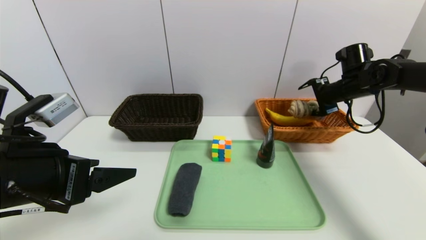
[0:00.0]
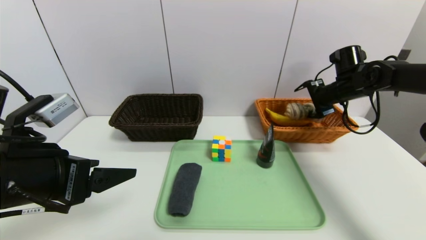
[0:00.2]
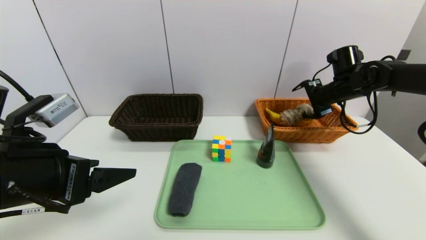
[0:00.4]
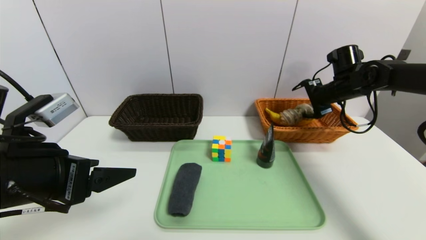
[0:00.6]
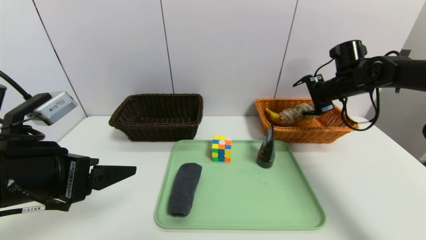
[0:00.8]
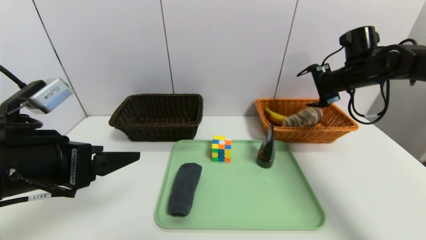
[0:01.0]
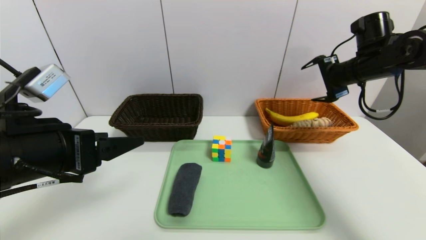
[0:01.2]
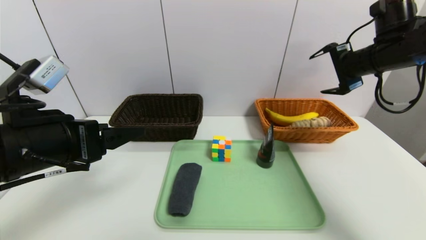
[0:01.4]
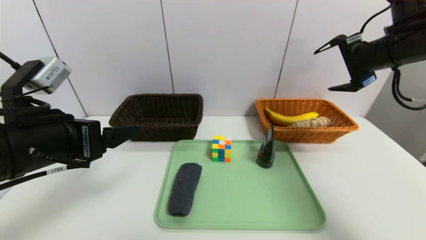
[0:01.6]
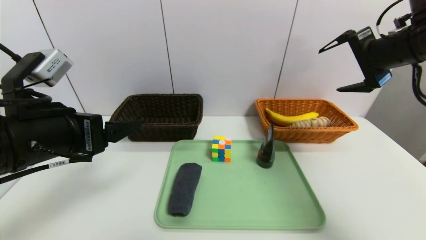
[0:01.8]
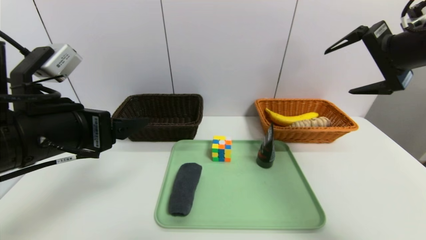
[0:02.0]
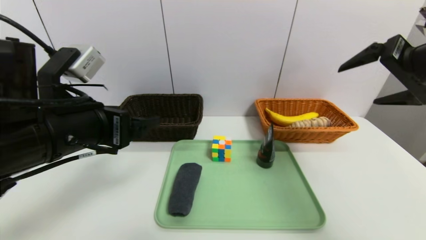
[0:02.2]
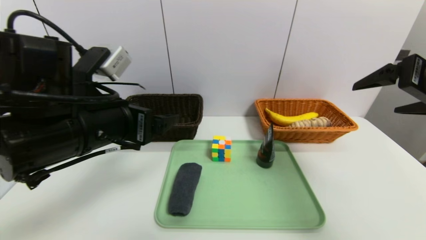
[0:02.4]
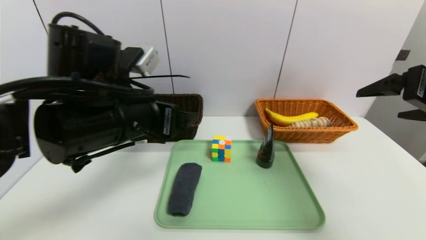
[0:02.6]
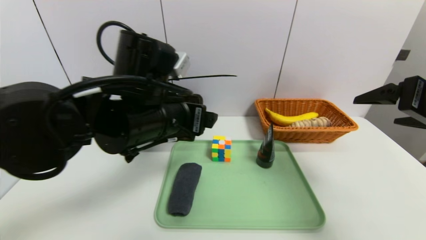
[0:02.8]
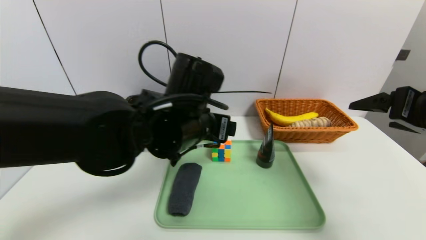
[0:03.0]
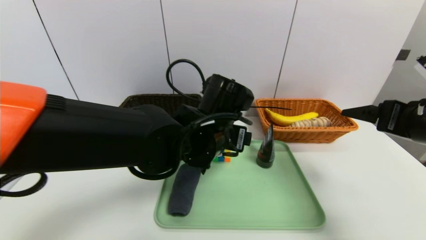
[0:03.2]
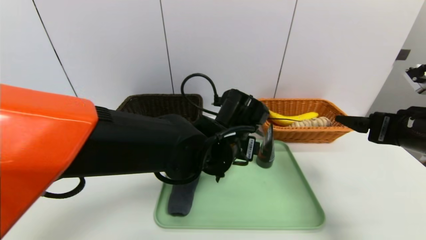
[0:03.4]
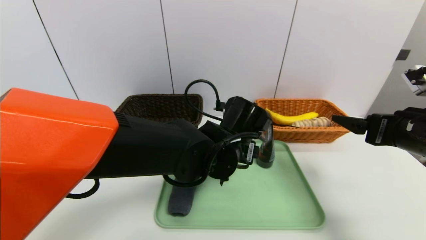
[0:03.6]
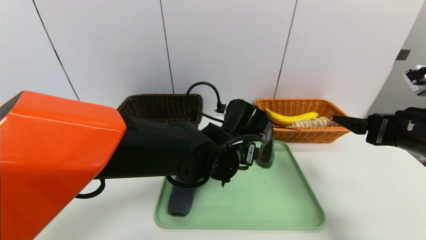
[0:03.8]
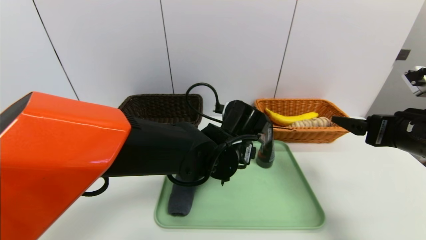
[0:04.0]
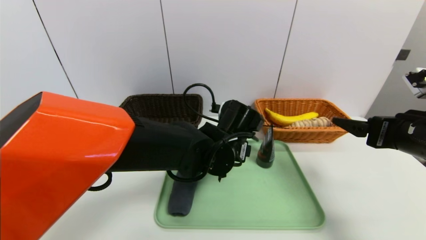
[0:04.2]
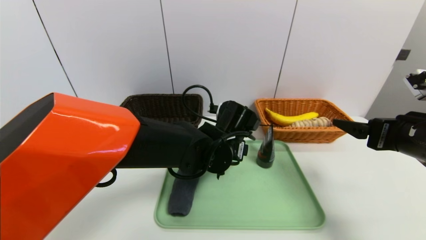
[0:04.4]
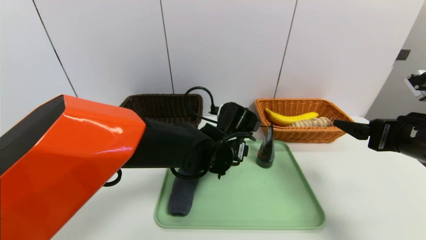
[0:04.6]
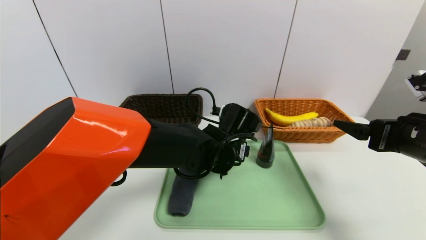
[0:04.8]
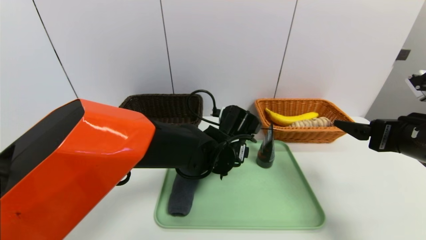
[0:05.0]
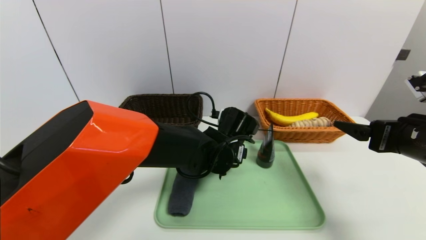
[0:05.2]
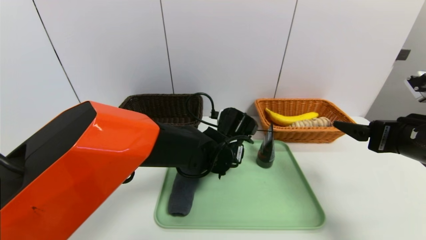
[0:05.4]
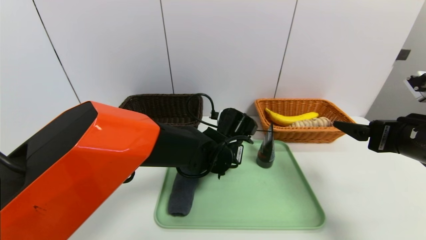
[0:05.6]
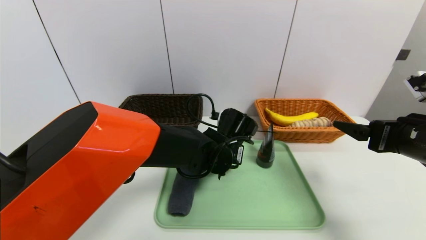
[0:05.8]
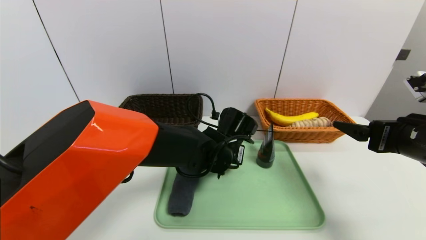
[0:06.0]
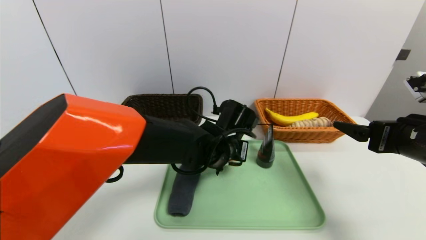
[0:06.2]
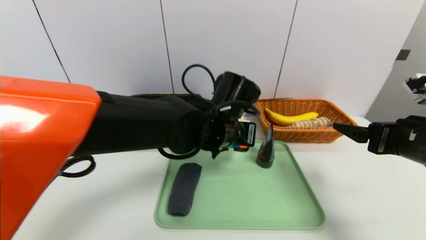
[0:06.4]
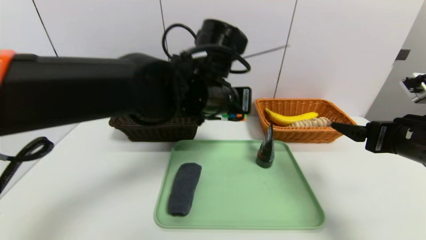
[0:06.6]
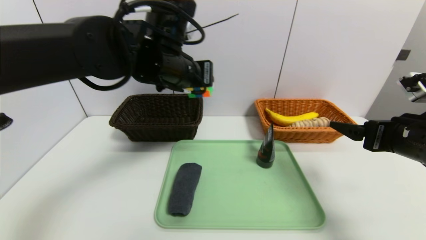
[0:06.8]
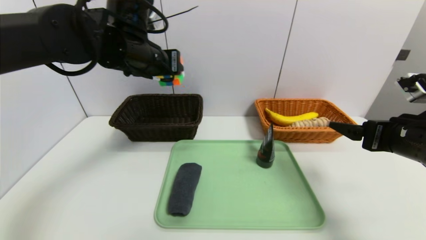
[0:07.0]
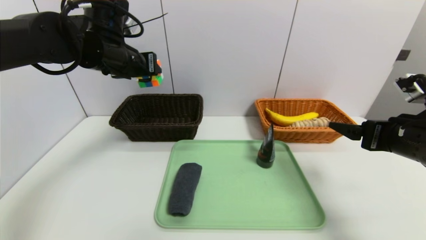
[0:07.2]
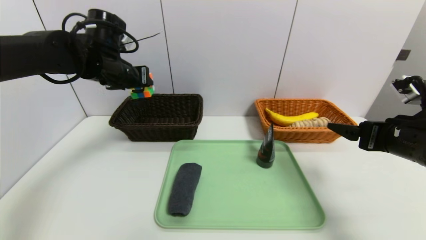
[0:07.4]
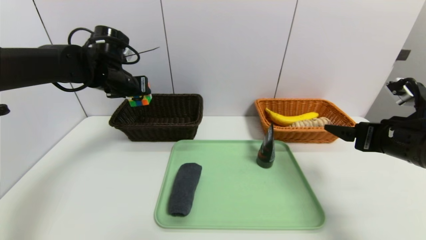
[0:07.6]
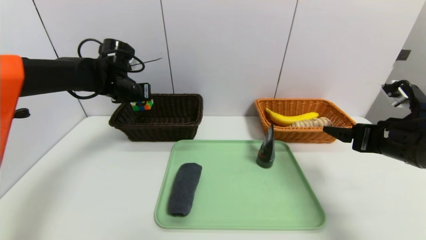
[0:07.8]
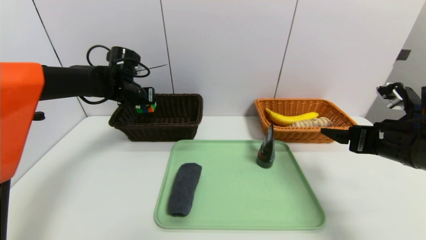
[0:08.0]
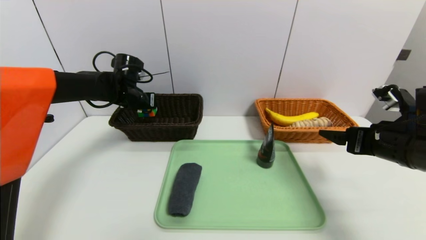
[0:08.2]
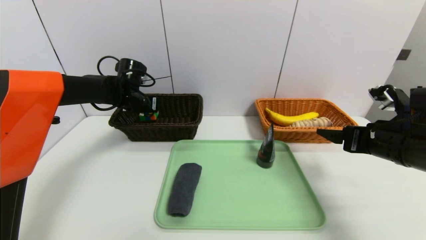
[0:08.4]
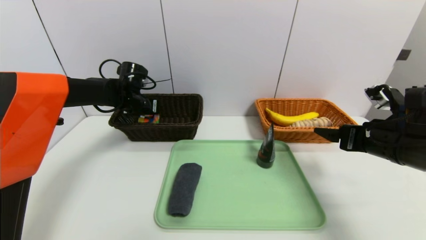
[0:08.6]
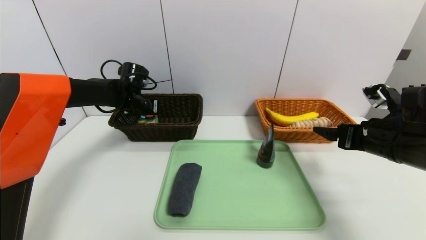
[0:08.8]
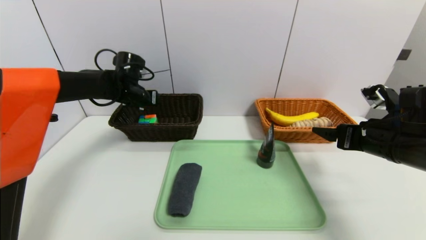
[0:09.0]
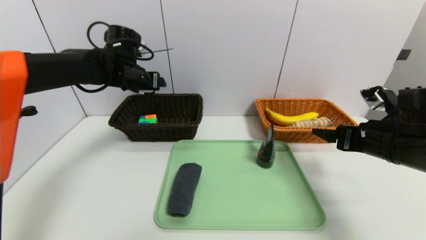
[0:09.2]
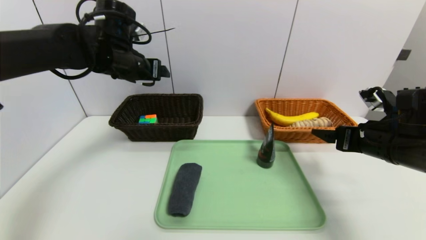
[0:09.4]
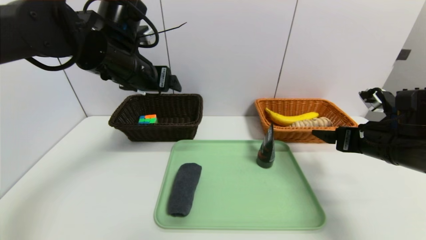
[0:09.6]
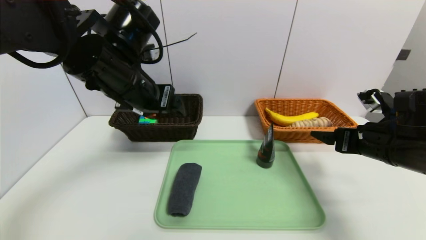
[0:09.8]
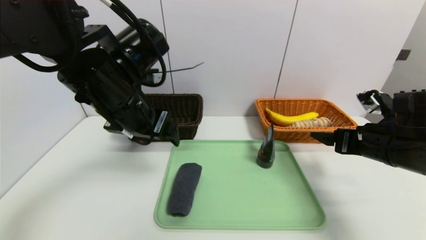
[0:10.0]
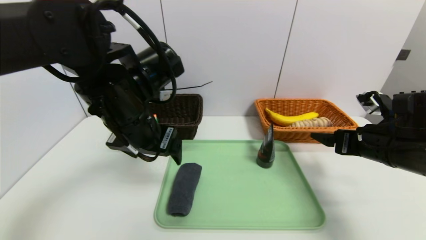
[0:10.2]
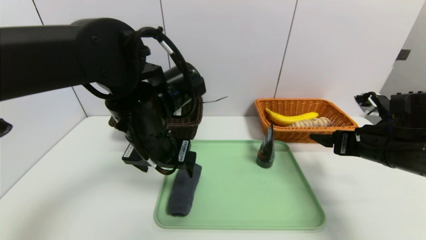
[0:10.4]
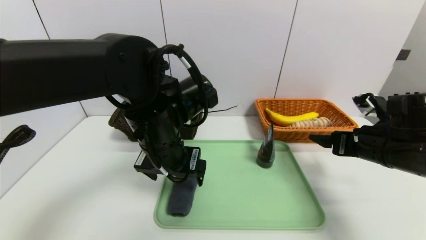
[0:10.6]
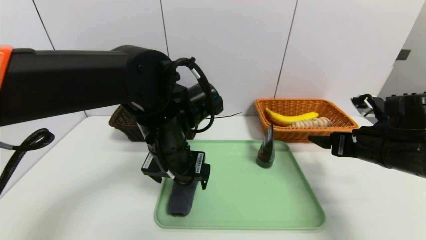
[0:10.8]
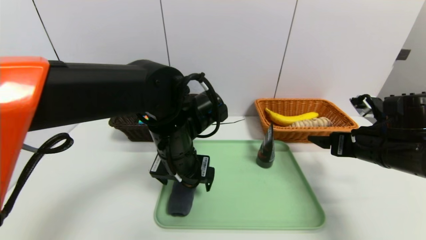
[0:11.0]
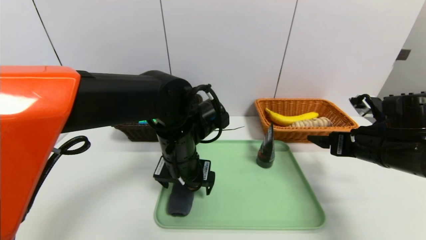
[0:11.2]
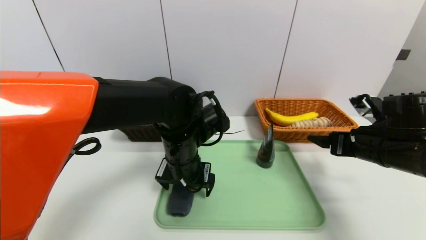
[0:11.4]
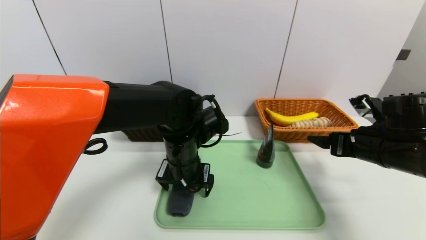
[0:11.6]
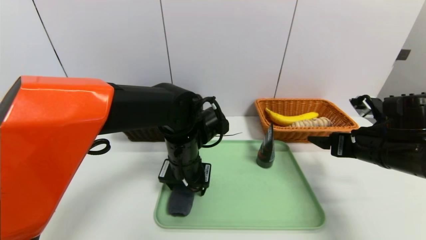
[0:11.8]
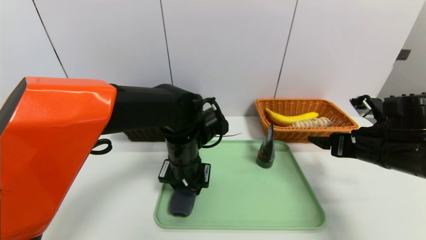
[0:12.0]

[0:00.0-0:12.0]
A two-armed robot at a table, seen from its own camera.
Task of the whole recording: place the food in the right basket with the right gripper, and place the non food items in the left basket with the left gripper.
Step, 0:01.2 to 0:09.0: Grasp the rubiks cube and put it in the left basket.
0:00.0 to 0:01.6: The right gripper travels upward and backward by about 15 cm.
0:01.6 to 0:03.0: The right gripper shifts about 15 cm backward, while the left gripper is displaced to the right and forward by some 20 cm.
0:03.0 to 0:04.4: The right gripper travels downward by approximately 5 cm. The left gripper travels downward and to the right by roughly 10 cm.
0:04.4 to 0:06.0: The left gripper closes up.
0:06.0 to 0:07.6: The left gripper moves to the left and upward, roughly 30 cm.
0:07.6 to 0:09.0: The left gripper shifts about 10 cm downward and forward.
0:09.0 to 0:10.4: The left gripper goes approximately 25 cm backward and to the right.
0:10.4 to 0:12.0: The left gripper heads downward, covering some 10 cm, and closes.

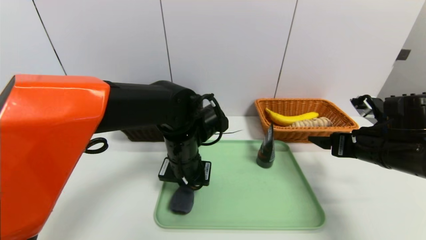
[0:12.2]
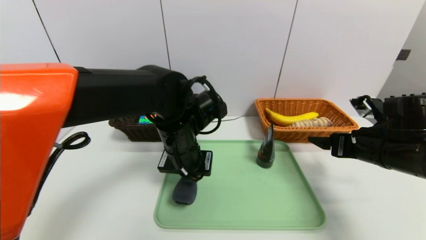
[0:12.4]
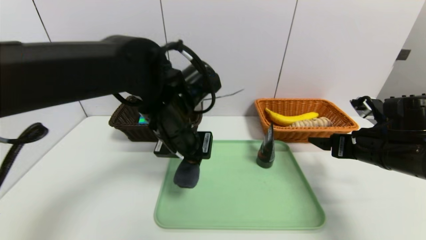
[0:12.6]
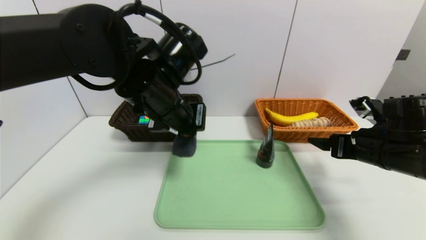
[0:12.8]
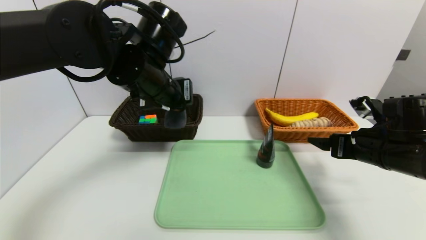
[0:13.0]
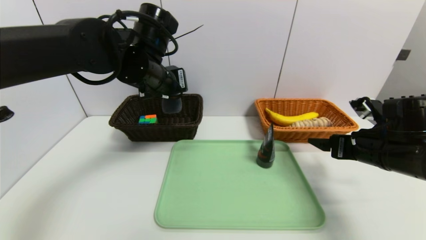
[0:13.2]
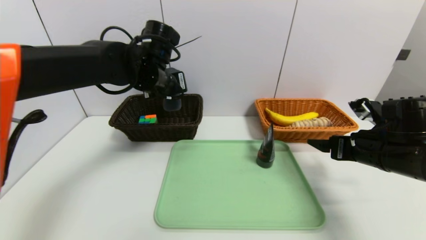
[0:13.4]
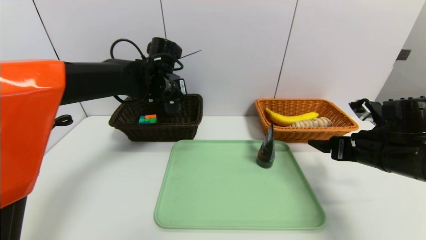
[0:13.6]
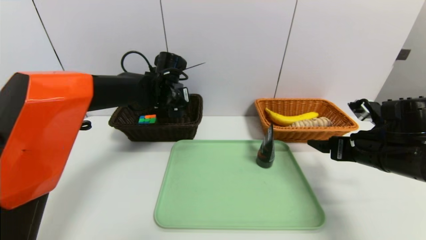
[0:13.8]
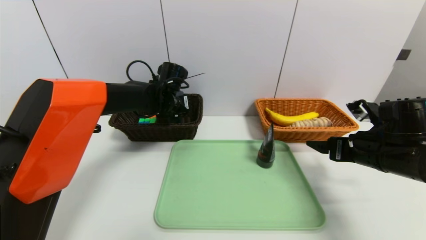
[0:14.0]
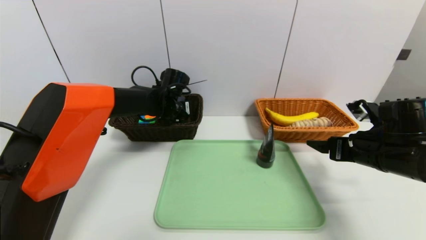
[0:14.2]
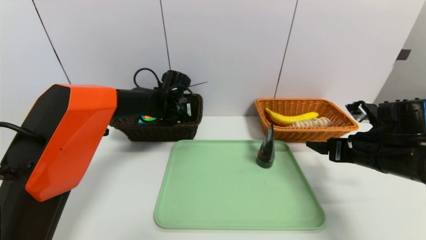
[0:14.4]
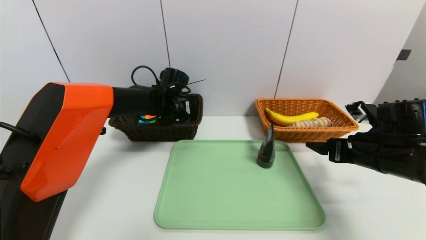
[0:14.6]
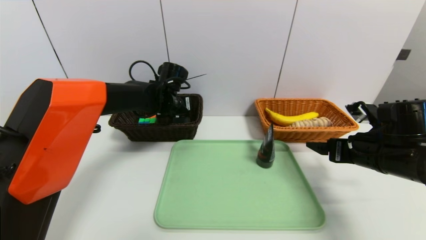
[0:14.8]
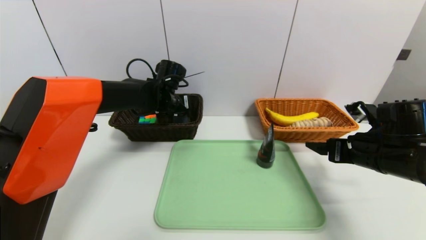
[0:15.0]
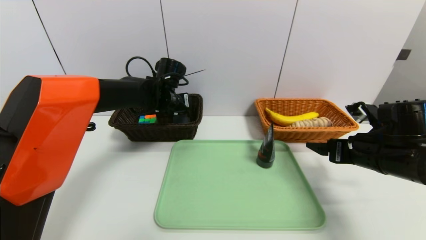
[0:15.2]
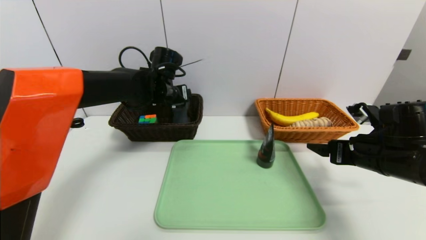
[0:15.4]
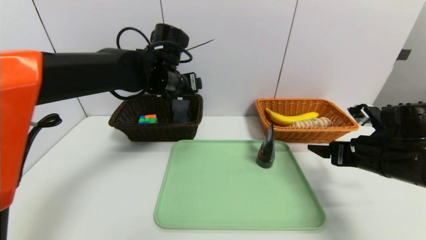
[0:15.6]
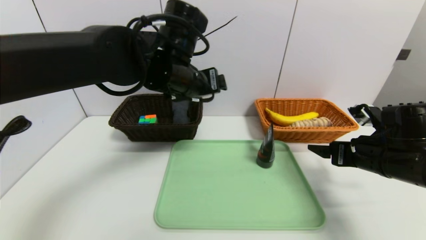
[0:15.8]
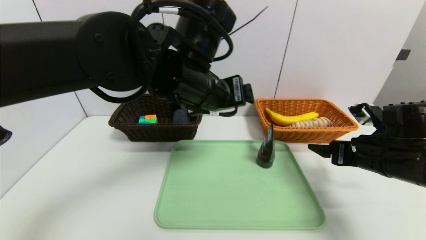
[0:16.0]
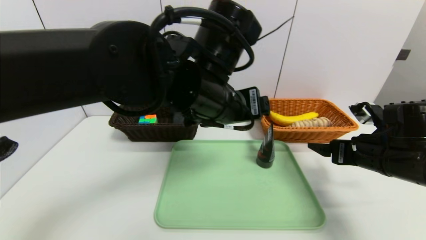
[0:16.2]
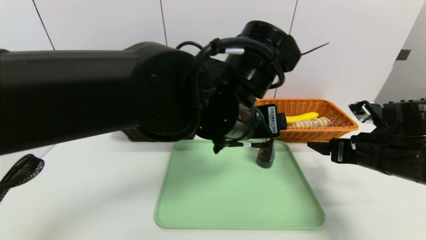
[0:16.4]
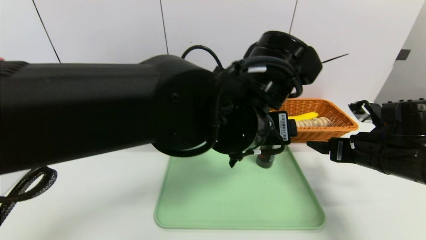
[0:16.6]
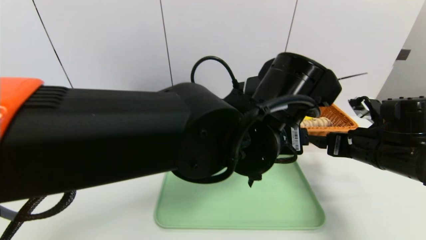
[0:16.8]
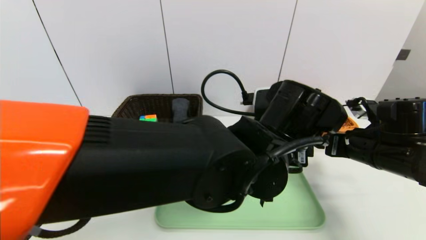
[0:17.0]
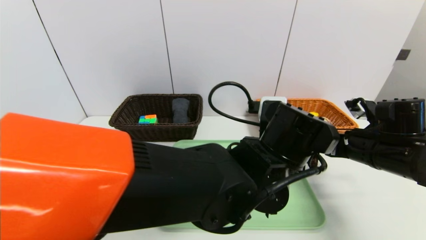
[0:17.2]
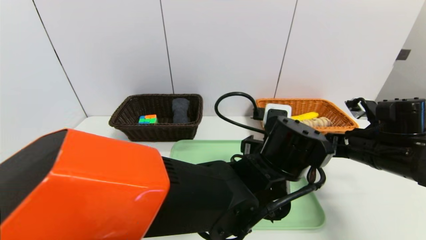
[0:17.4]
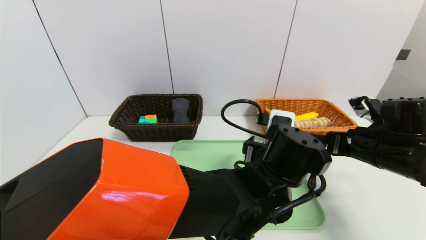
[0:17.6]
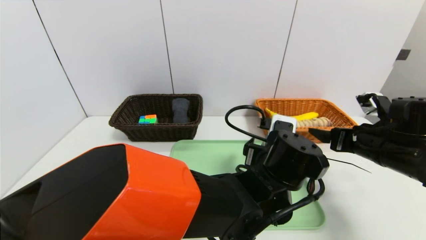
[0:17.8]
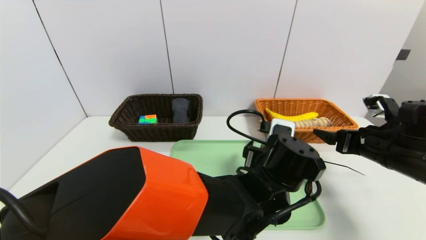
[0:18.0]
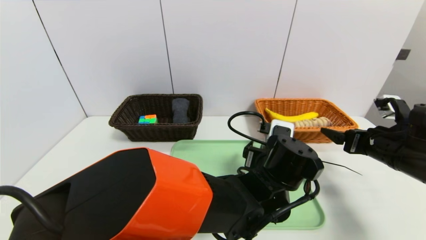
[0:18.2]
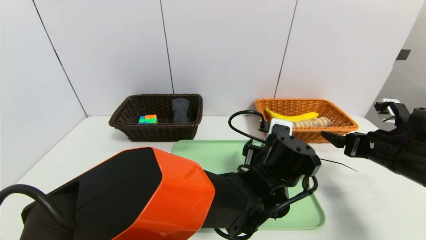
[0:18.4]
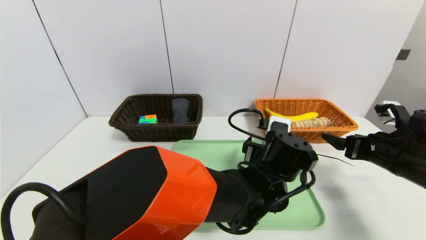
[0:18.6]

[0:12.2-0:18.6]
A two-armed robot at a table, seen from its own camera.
Task of the whole recording: place the food in the right basket with the right gripper, and place the non food items in the left basket with the left gripper.
Step, 0:12.2 to 0:15.4: Grasp the grey towel and put it in the left basket.
0:12.2 to 0:13.8: The left gripper is displaced forward and to the left by about 15 cm.
0:13.8 to 0:15.4: The left gripper opens.
0:15.4 to 0:17.0: The left gripper is displaced backward and to the right by roughly 30 cm.
0:17.0 to 0:18.6: The left gripper is displaced downward and forward by about 10 cm.
